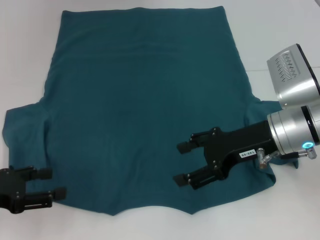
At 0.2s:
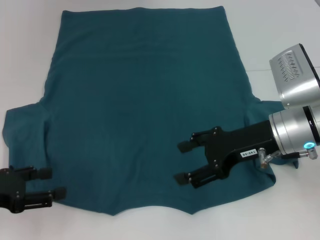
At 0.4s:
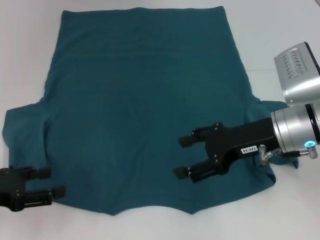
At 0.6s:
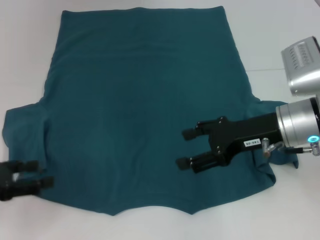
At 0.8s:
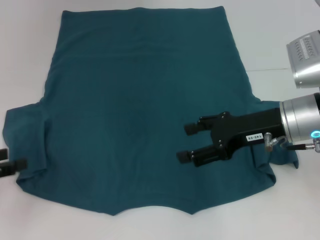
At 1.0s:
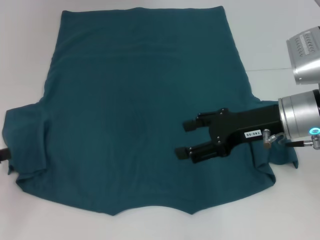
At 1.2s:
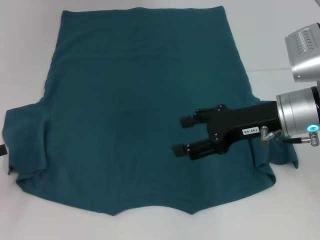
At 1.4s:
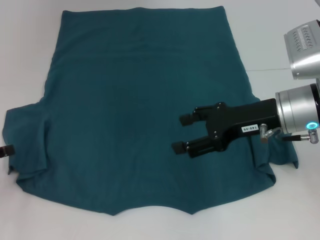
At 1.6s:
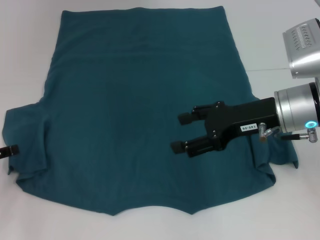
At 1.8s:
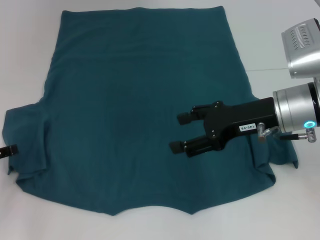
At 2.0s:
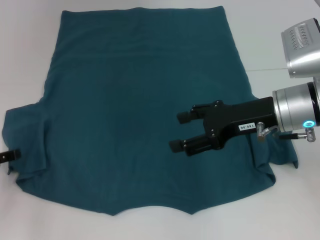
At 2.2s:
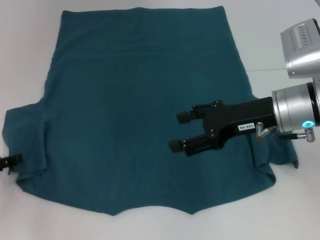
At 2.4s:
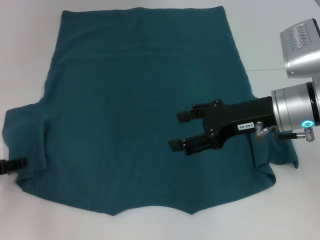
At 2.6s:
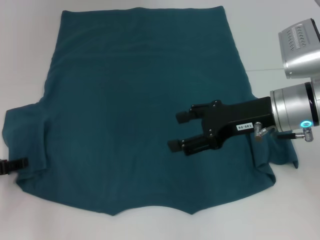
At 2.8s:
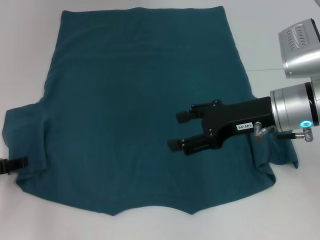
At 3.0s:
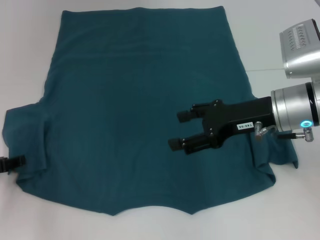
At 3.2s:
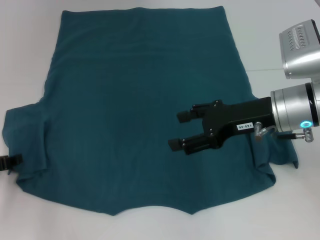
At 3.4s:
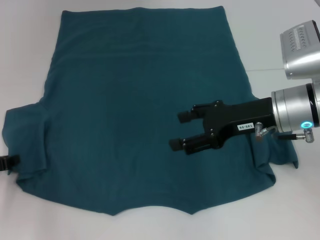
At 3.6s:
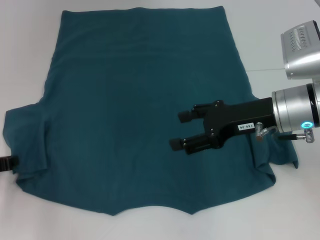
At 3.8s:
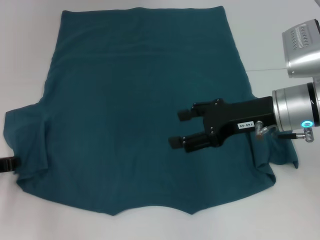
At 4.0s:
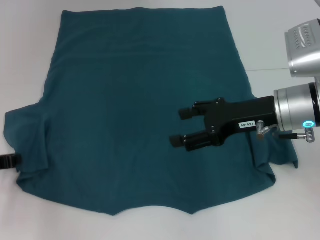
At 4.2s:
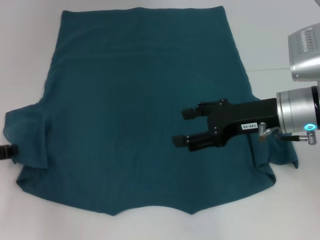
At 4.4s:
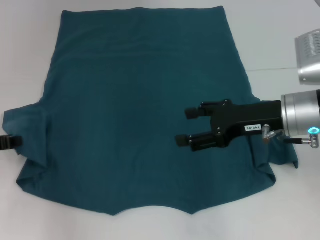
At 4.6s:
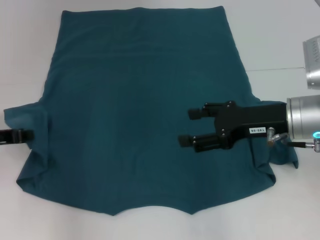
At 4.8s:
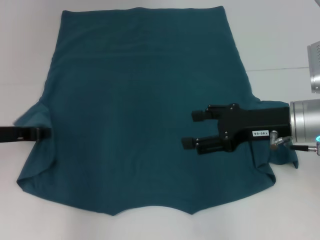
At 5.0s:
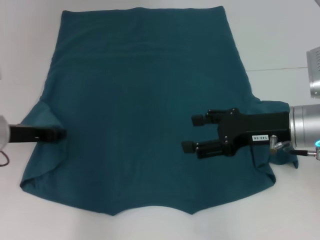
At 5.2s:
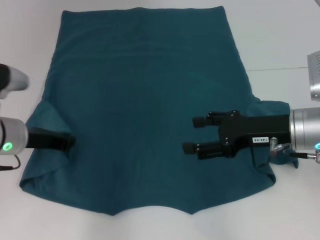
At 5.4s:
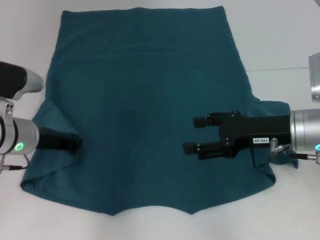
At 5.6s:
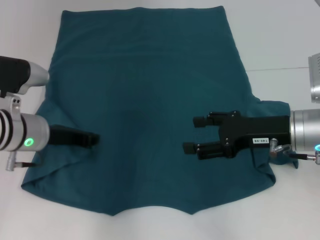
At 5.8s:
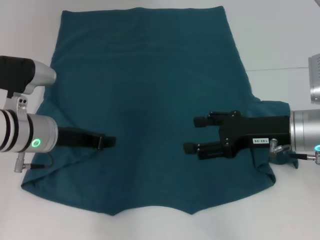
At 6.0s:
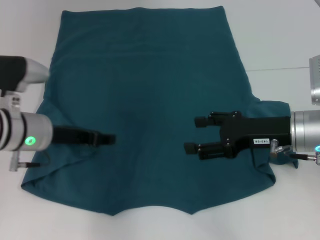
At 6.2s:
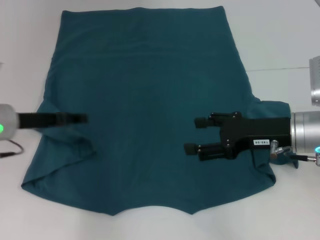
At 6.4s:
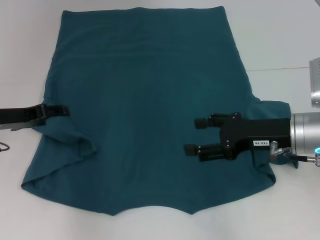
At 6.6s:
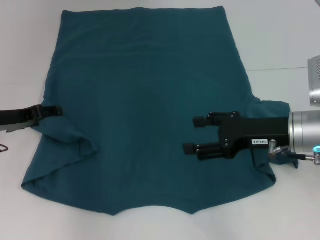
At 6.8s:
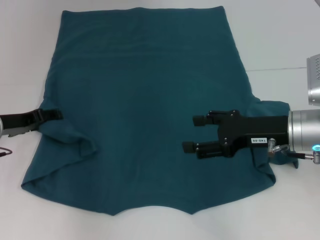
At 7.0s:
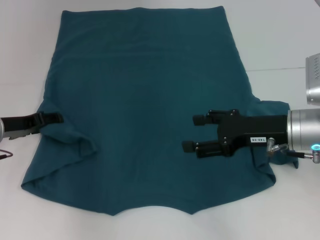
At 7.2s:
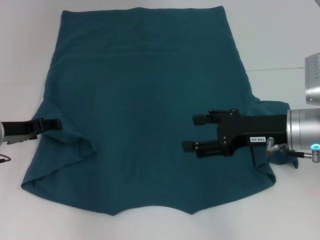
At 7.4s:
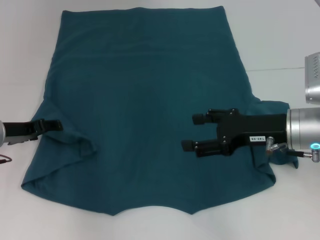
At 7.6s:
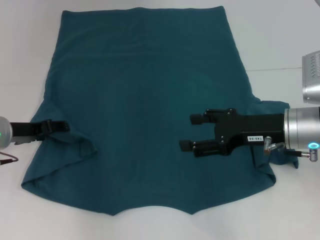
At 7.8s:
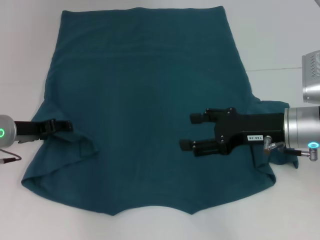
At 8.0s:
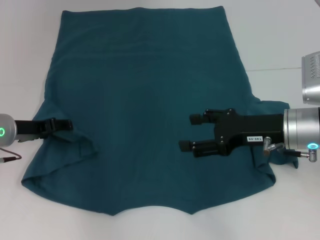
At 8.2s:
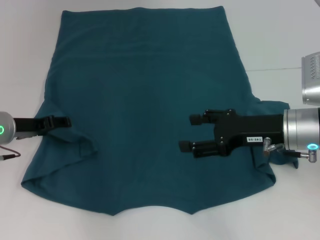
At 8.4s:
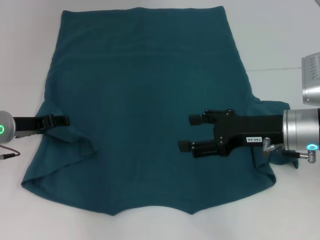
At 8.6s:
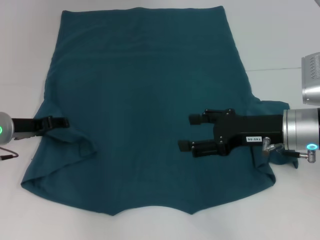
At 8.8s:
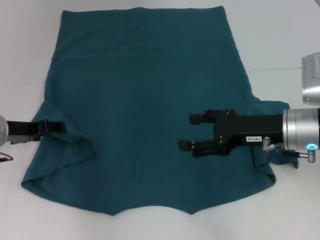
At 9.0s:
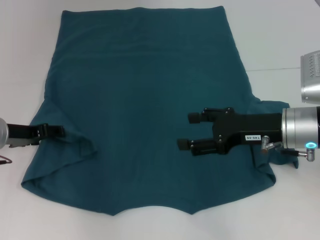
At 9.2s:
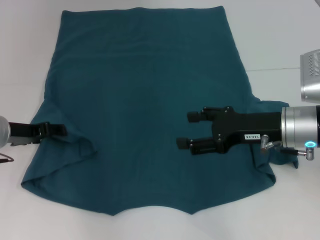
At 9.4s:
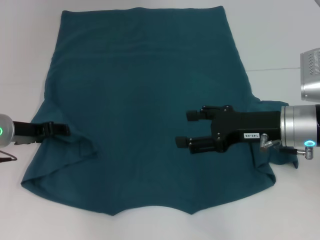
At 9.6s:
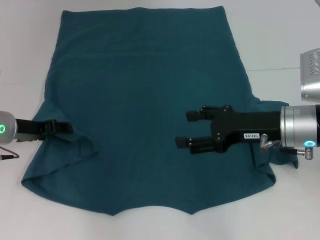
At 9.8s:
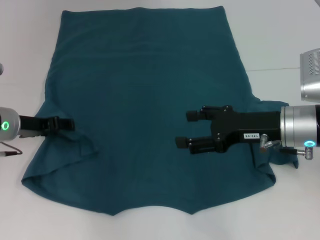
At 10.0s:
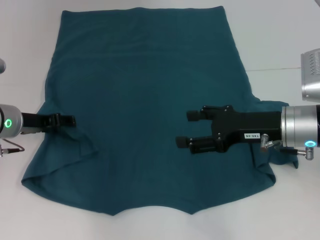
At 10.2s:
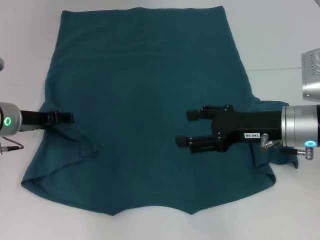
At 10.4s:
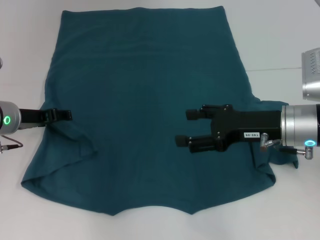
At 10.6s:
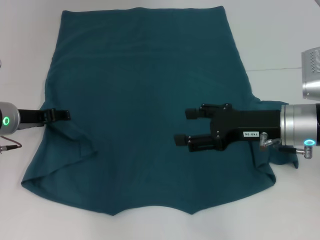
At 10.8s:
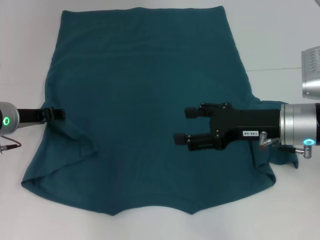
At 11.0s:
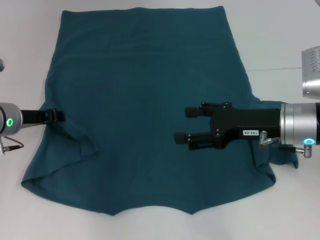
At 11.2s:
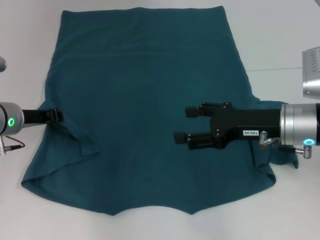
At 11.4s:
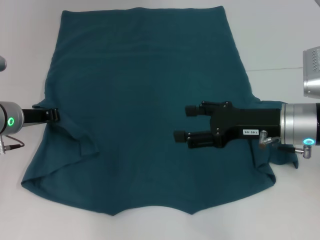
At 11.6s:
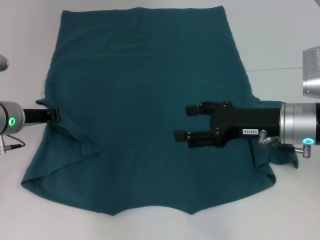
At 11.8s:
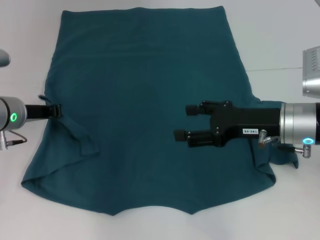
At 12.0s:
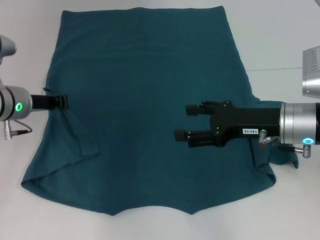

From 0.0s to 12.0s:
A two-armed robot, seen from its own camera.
From 1.6s to 3.0s: The grippers make only small movements.
From 3.0s to 4.4s: The left gripper closes up.
From 4.4s to 6.0s: The left gripper goes approximately 10 cm to the right.
From 6.0s to 7.6s: The left gripper moves to the left, about 5 cm, and opens up.
From 7.6s to 9.0s: The two grippers keep their place.
From 9.0s to 10.4s: The grippers stay close to where they were, moving slightly.
From 10.4s to 12.0s: The left gripper closes its fingers.

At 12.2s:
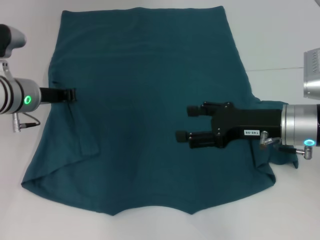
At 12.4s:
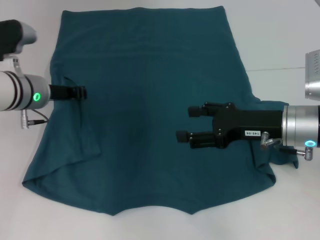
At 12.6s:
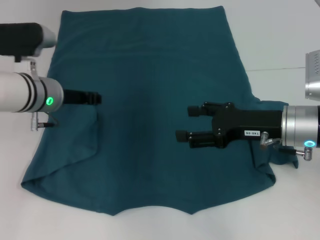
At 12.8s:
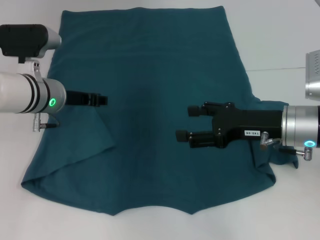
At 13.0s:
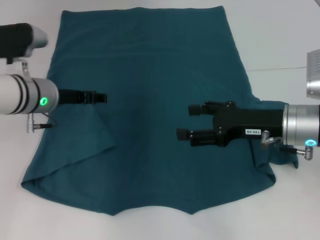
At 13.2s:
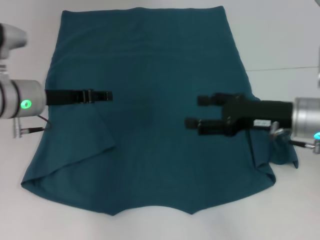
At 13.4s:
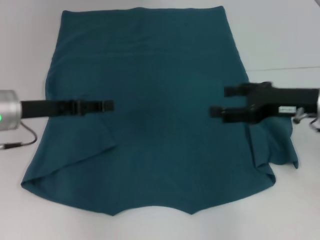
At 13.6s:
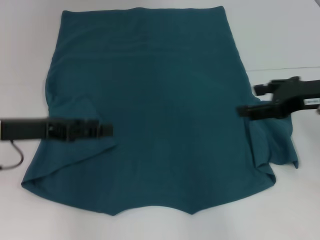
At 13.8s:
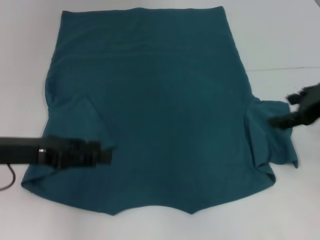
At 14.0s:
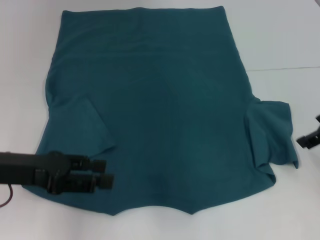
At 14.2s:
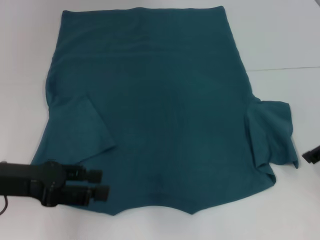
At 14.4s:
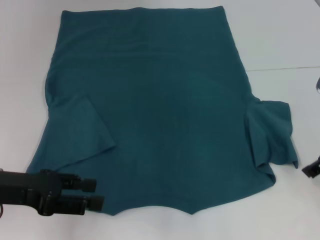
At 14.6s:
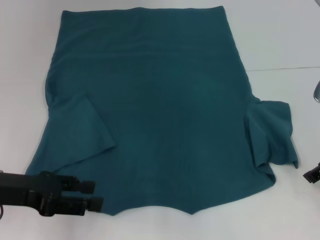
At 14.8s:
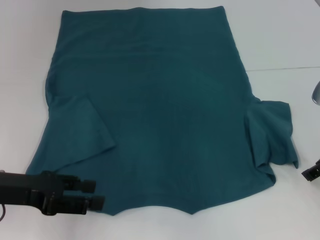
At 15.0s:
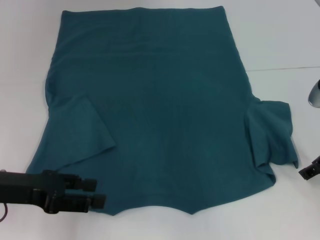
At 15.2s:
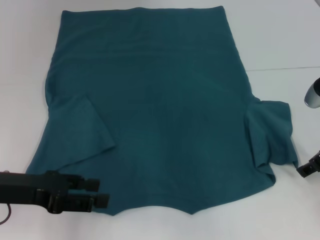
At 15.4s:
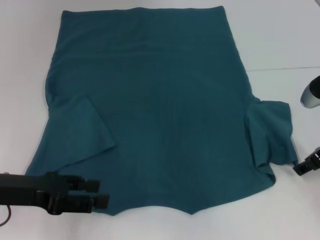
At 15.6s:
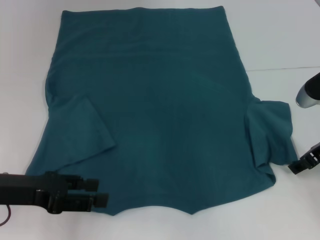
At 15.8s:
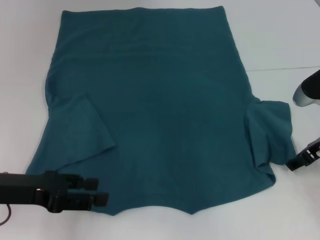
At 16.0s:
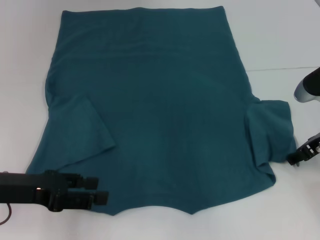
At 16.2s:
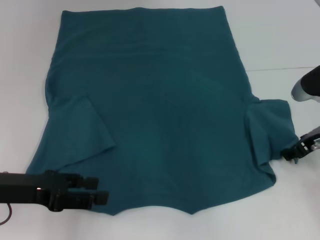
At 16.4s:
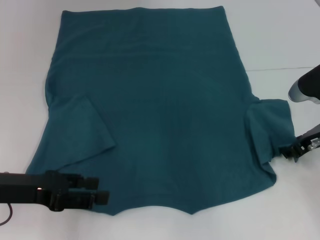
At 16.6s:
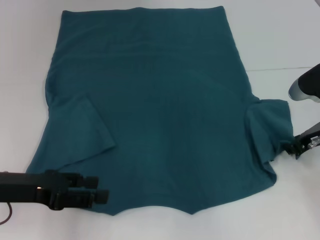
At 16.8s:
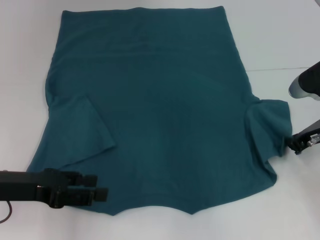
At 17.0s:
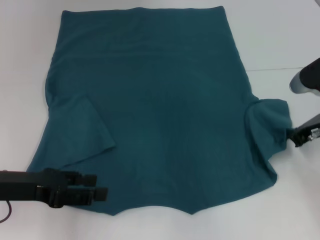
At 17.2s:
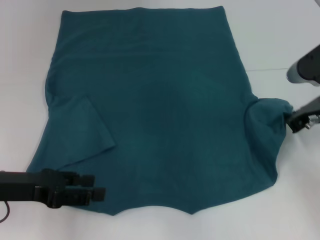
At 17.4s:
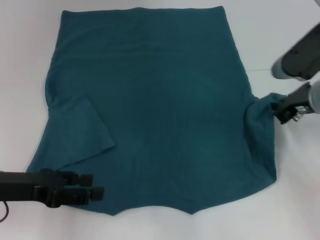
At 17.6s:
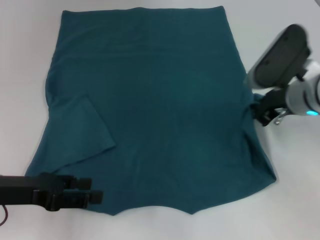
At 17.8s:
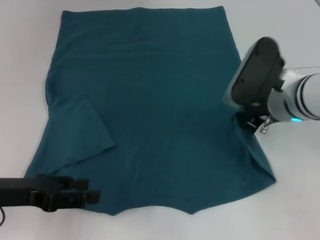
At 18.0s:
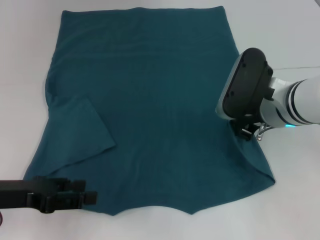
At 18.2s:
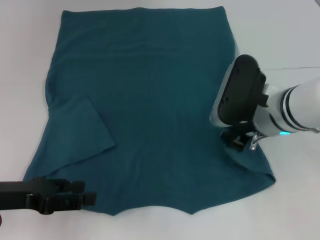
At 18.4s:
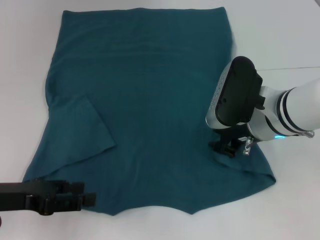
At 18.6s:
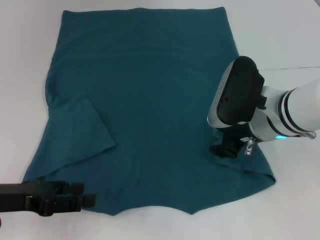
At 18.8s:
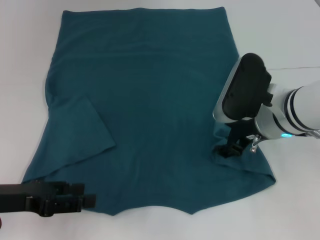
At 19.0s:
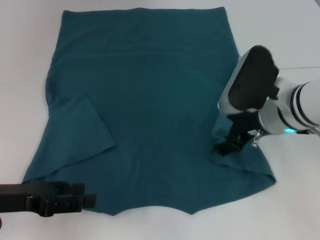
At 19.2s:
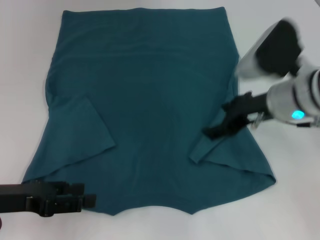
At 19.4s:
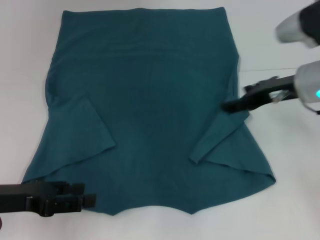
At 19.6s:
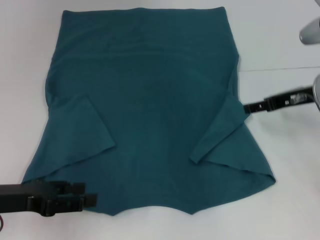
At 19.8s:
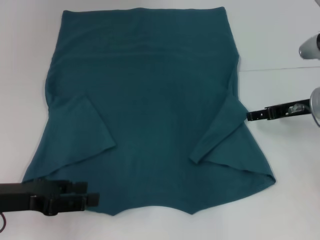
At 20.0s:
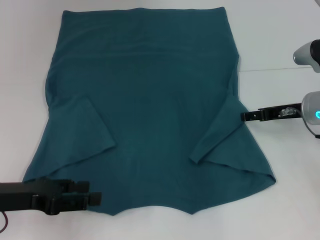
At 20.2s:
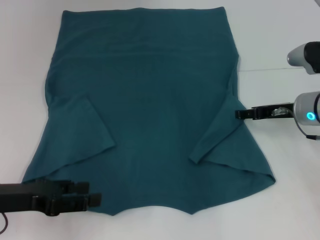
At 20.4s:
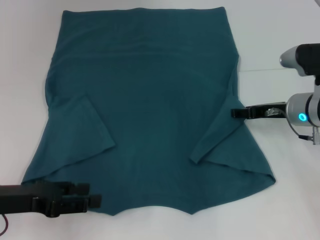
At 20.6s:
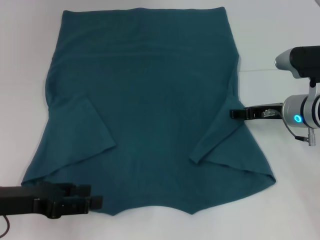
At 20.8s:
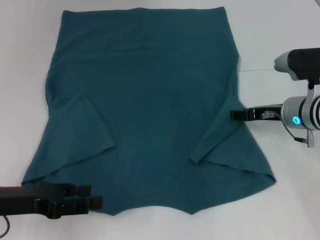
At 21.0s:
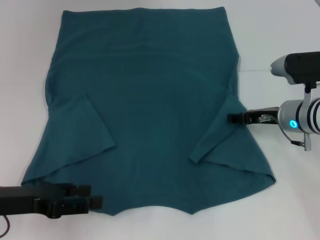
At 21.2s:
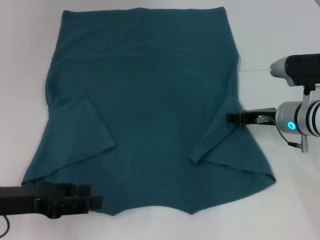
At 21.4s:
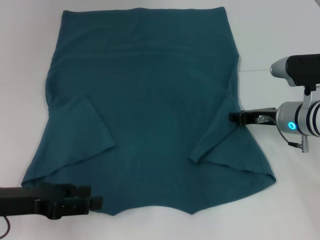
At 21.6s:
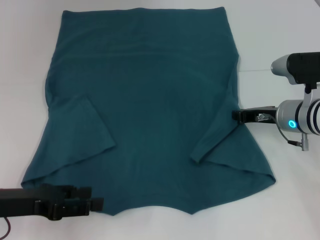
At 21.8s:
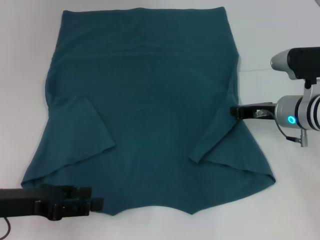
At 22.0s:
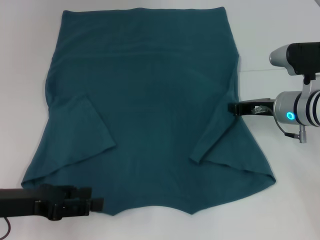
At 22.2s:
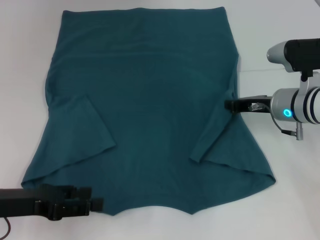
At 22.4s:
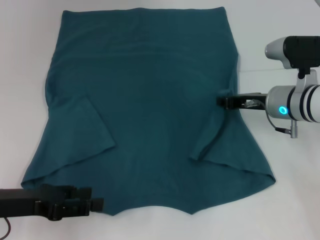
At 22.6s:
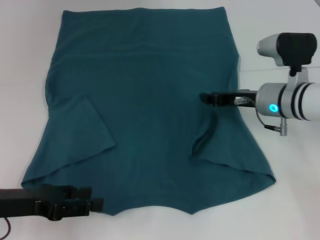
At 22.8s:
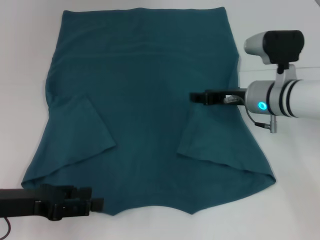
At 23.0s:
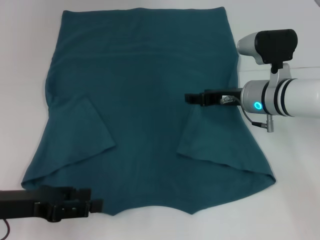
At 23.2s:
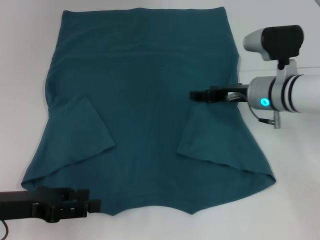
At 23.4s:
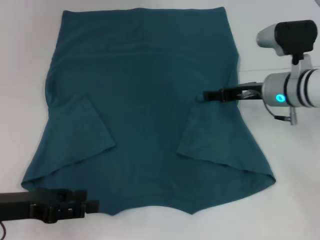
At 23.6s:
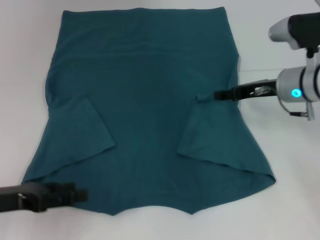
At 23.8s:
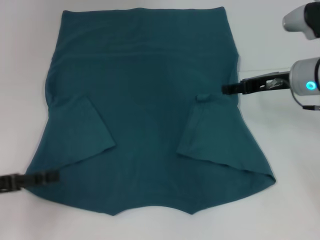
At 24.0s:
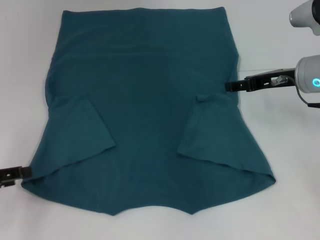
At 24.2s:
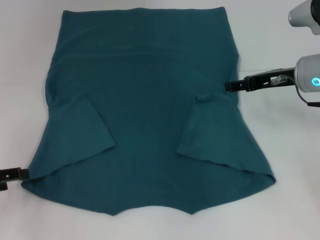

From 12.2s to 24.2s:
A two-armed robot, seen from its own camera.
Step, from 13.0s to 22.6s: Fold the bottom right sleeve to the right.
From 12.2s to 13.8s: The left gripper is displaced backward by approximately 10 cm, and opens. The right gripper is displaced upward and to the right by roughly 10 cm.
From 13.8s to 15.2s: The right gripper is displaced downward by about 10 cm.
From 15.2s to 16.6s: There are only small adjustments of the grippers.
From 16.6s to 18.2s: The right gripper goes about 10 cm to the left, and closes.
From 18.2s to 19.8s: The right gripper travels to the right by some 10 cm, and opens up.
From 19.8s to 21.2s: The right gripper moves about 5 cm.
From 21.2s to 22.6s: The right gripper closes.
From 22.6s to 24.2s: The right gripper goes approximately 5 cm upward, and opens its fingers, while the left gripper shifts about 10 cm to the left.
